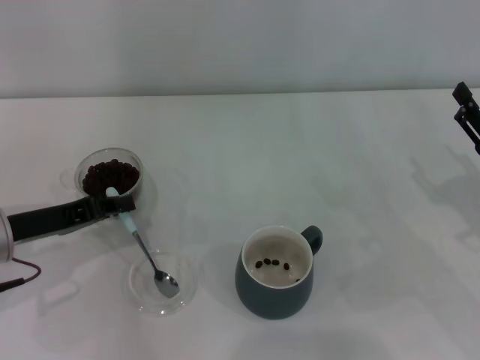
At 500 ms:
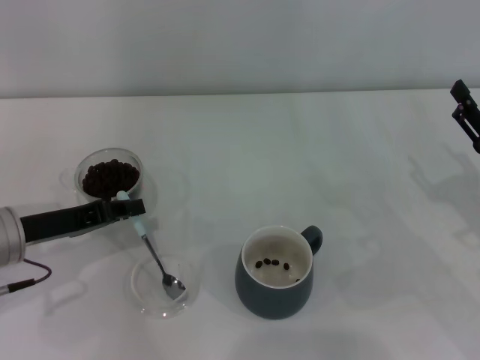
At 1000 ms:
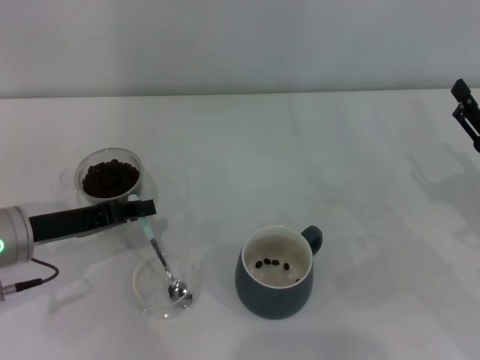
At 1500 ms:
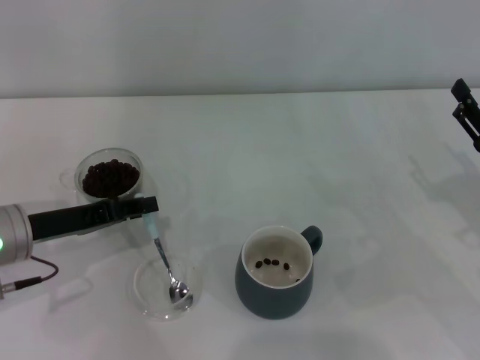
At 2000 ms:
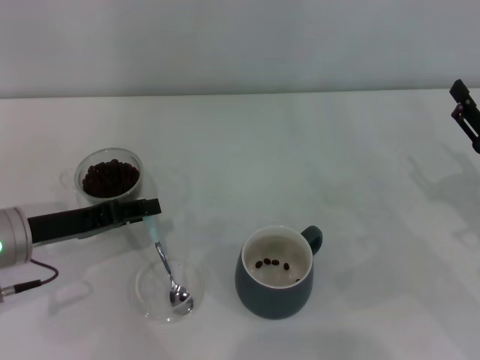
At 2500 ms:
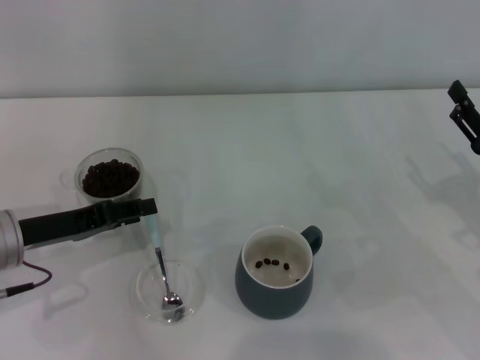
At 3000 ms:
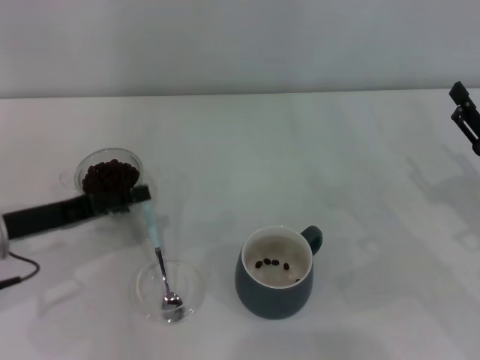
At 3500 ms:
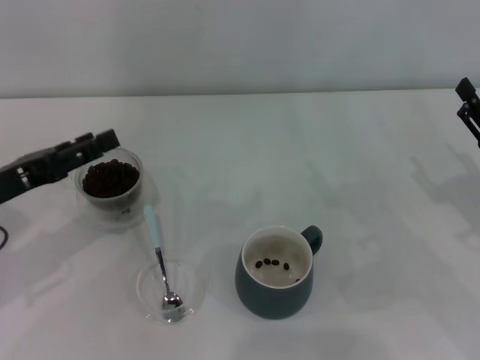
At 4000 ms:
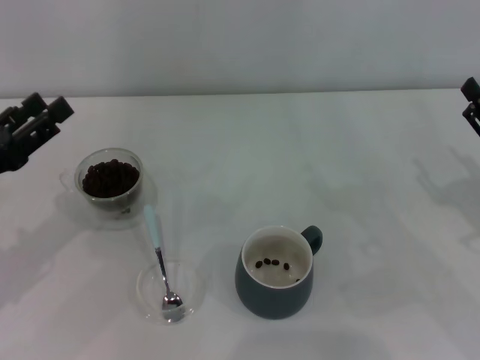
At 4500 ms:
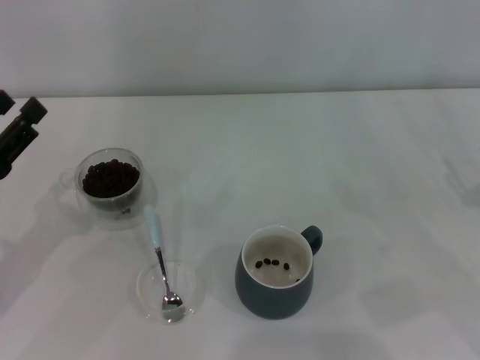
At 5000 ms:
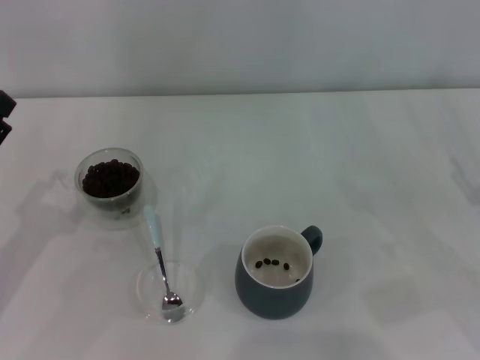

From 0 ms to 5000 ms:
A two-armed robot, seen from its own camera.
Task of the whole recording: Use a blue spoon to take out the coffee beans from the glass and pour them into the gray cup.
Step, from 0 ms to 2500 ms: Place the spoon back in its original place with the right gripper.
From 0 ms to 2500 ms: The left gripper opens.
From 2500 ms to 5000 ms: The left gripper goes about 10 cm backward and to the left, and opens its fingers.

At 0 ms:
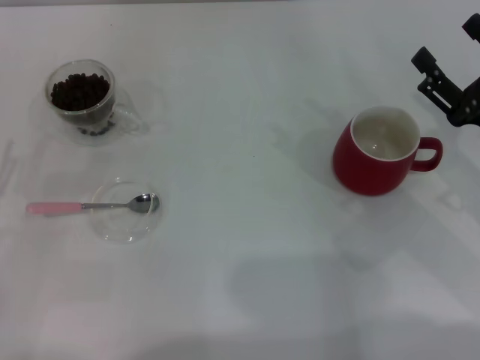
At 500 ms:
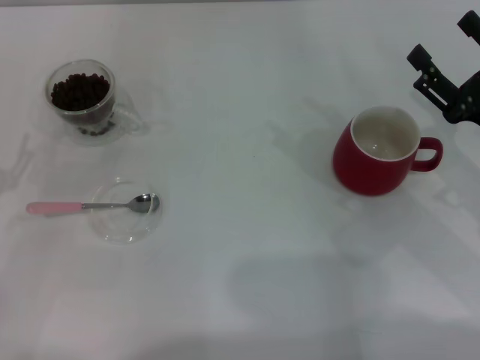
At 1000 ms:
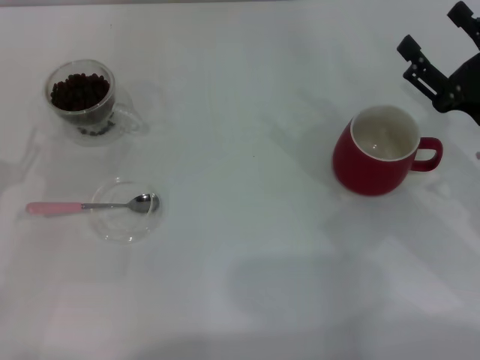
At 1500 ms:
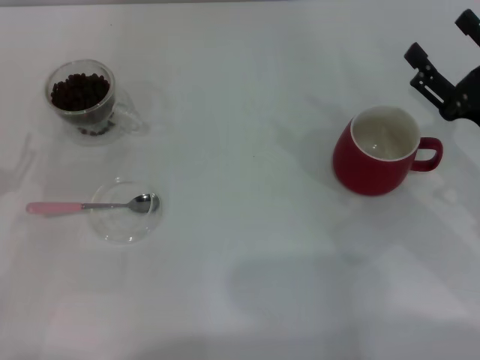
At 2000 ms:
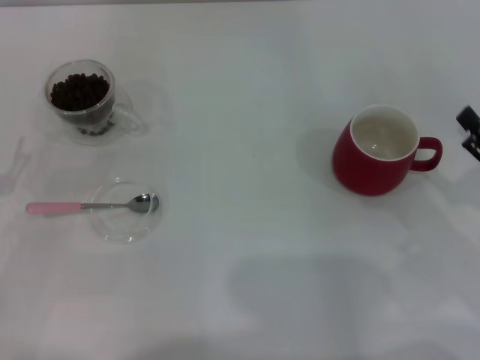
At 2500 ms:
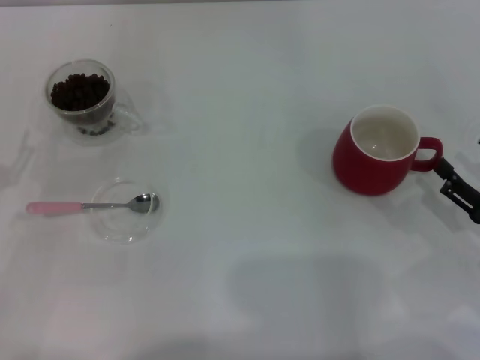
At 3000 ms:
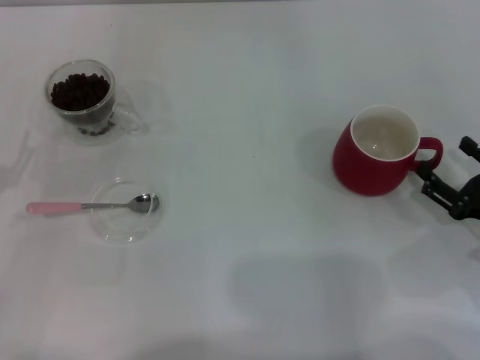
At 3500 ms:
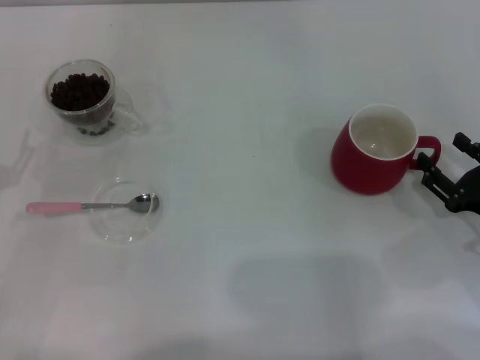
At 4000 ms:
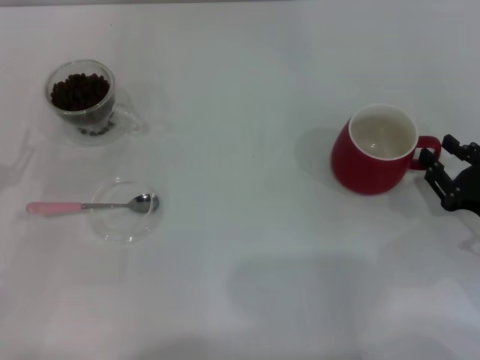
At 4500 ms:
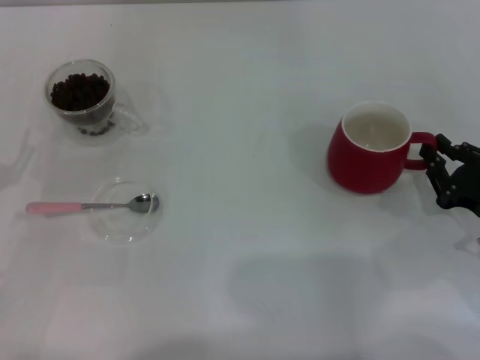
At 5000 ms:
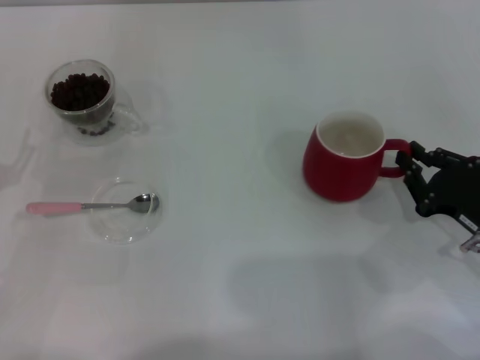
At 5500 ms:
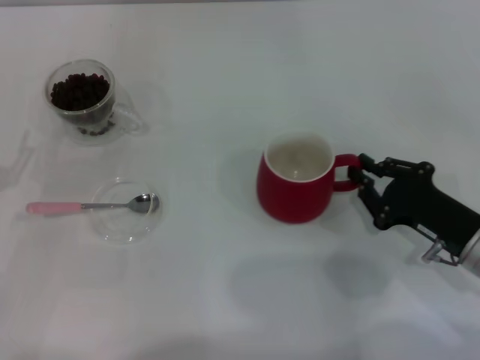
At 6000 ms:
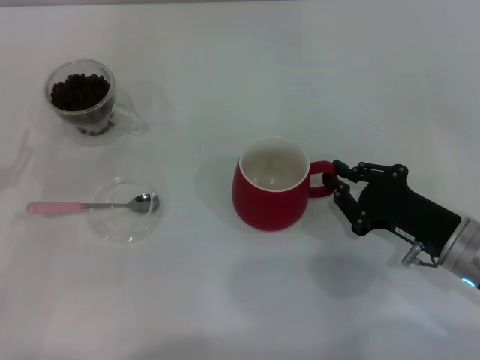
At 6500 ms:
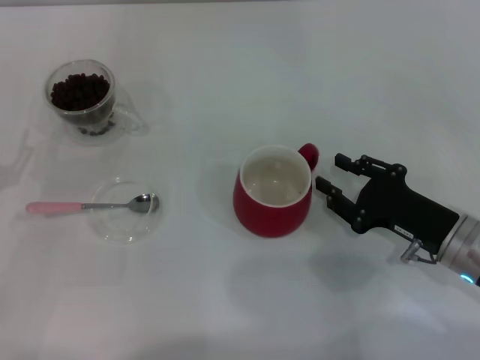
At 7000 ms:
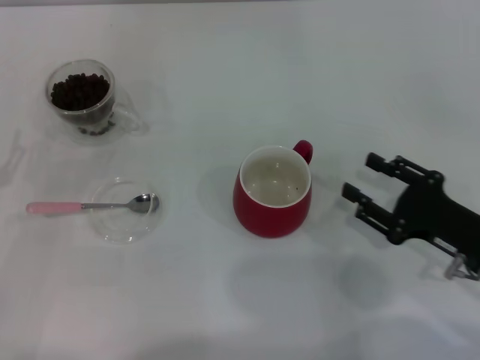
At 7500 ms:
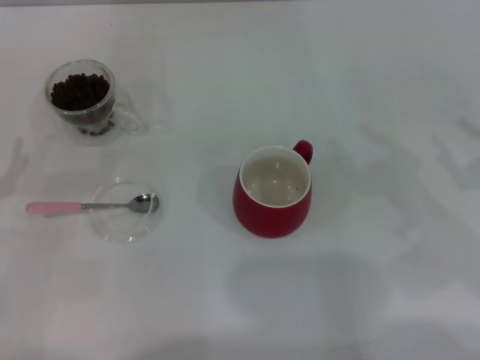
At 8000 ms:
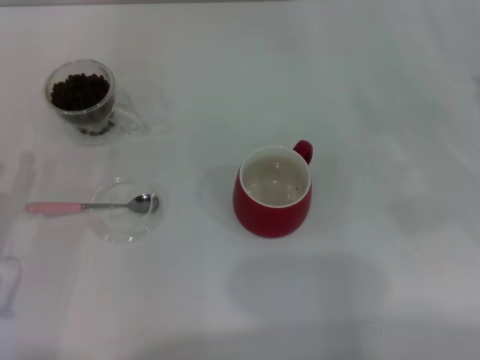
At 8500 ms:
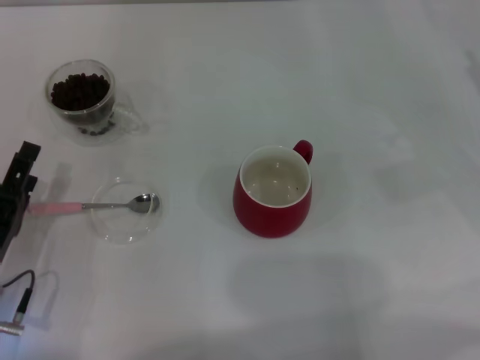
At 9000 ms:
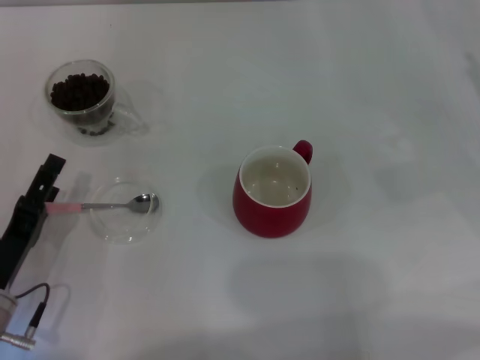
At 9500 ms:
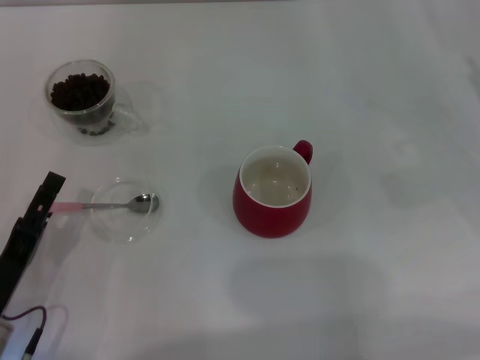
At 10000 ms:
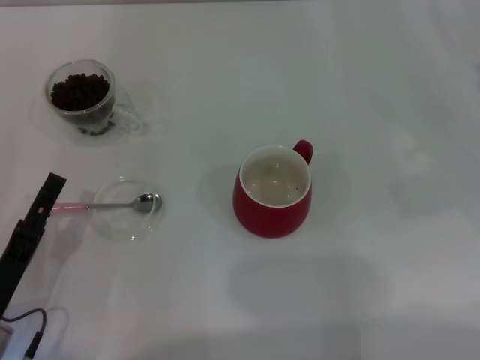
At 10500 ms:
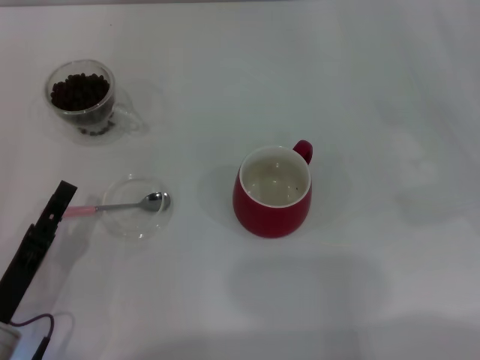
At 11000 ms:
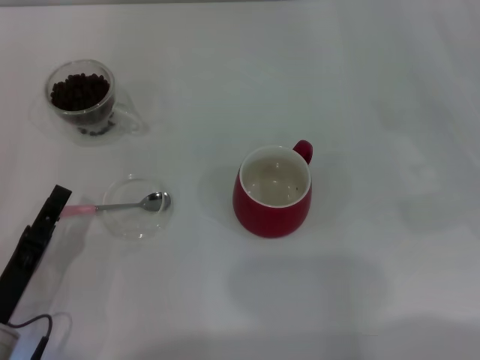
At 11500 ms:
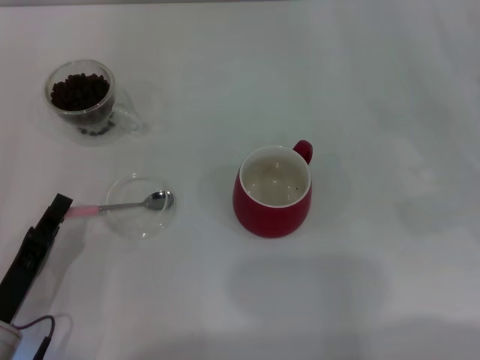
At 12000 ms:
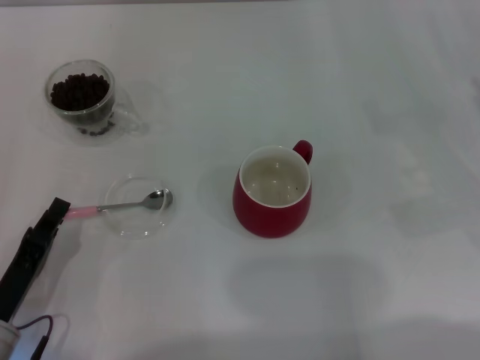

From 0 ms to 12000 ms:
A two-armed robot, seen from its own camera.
Task of the whole recording: Use a pink spoon to take out the coffee beans from the glass and pour them into the red cup.
Step, from 0 ms to 6500 ms: Move the cup to the center of view with the left gripper.
From 0 ms to 2000 ms: The right gripper is displaced backward by about 5 cm.
From 2000 ms to 4000 ms: The right gripper closes up.
From 4000 ms to 6000 ms: The right gripper heads to the left, covering approximately 5 cm, and closes up.
From 6000 ms to 8000 ms: The right gripper moves to the right and upward, approximately 15 cm, and opens.
From 8000 ms to 10000 ms: The left gripper ends up about 5 cm from where it was.
From 10000 ms to 12000 ms: The left gripper closes its fingers.

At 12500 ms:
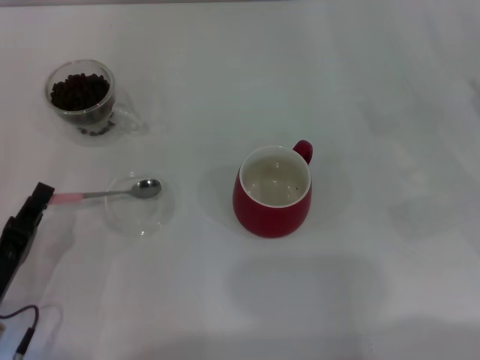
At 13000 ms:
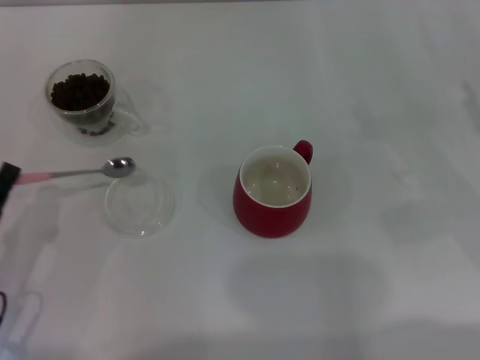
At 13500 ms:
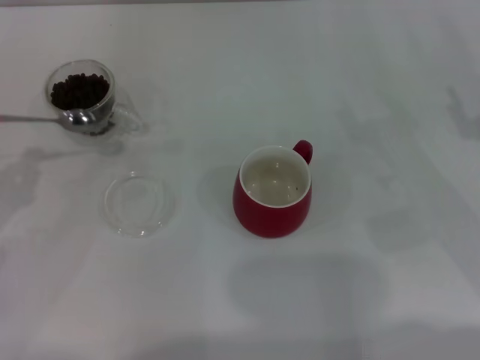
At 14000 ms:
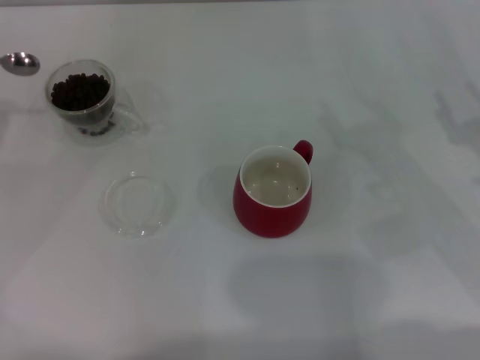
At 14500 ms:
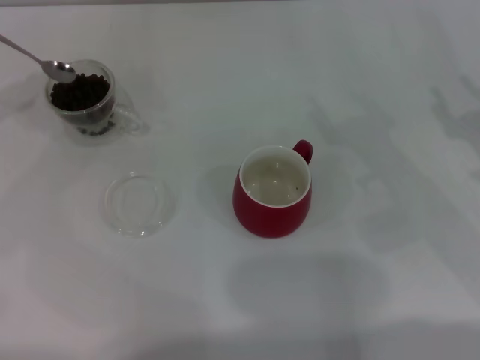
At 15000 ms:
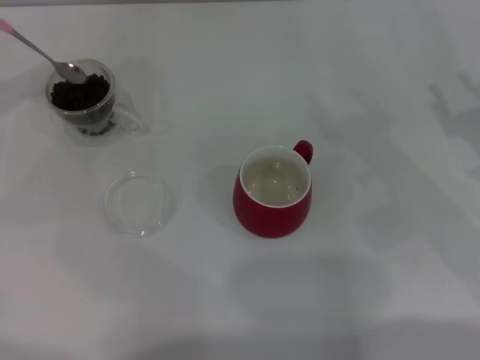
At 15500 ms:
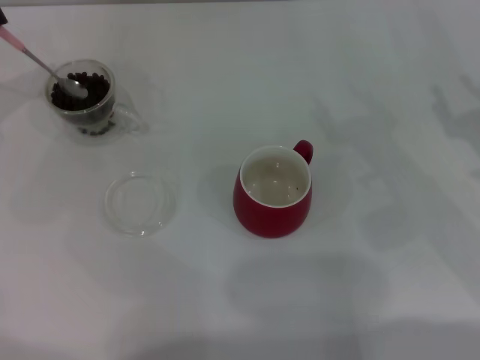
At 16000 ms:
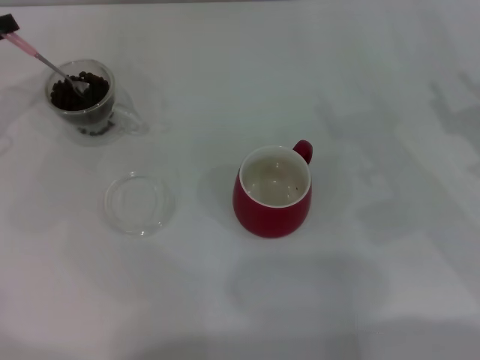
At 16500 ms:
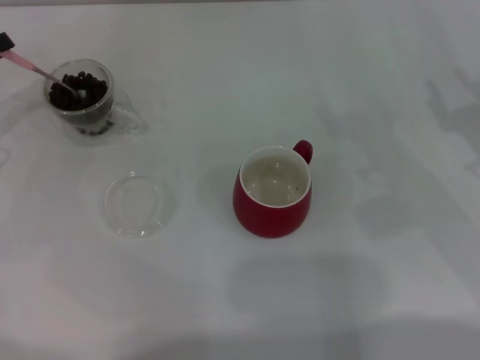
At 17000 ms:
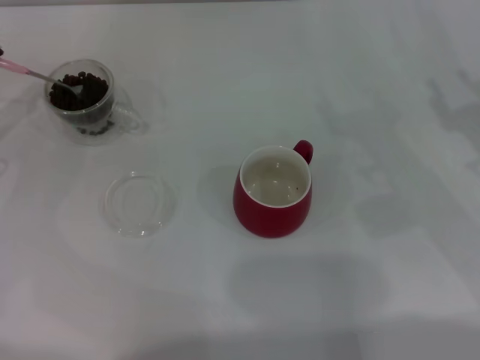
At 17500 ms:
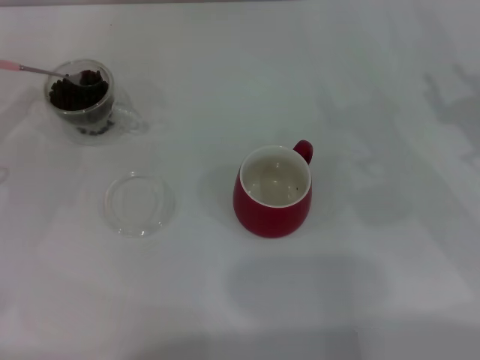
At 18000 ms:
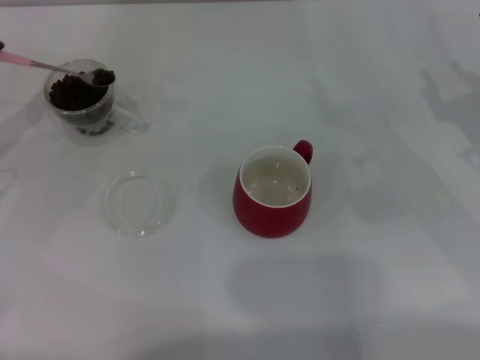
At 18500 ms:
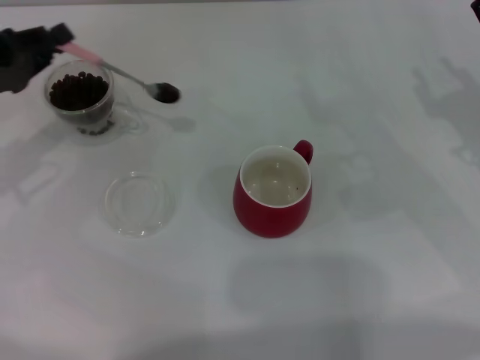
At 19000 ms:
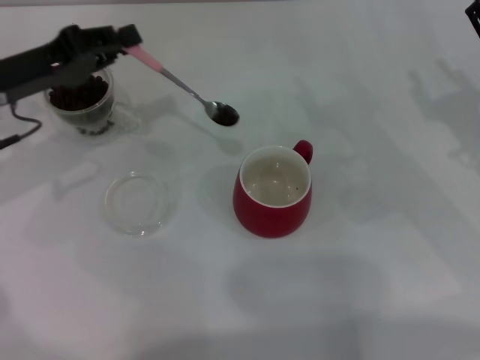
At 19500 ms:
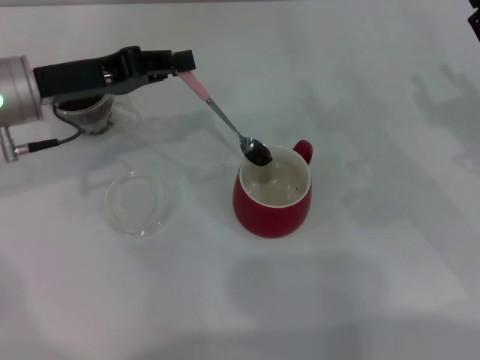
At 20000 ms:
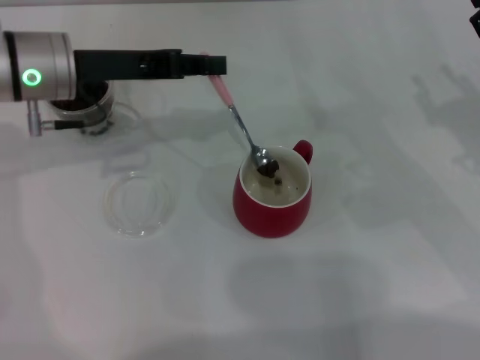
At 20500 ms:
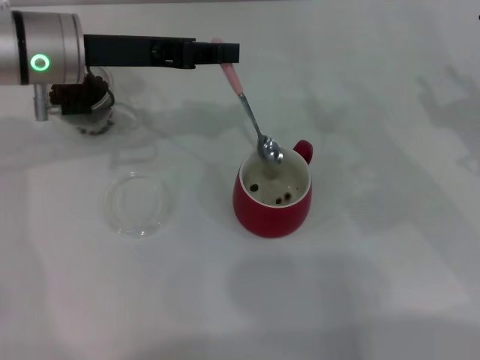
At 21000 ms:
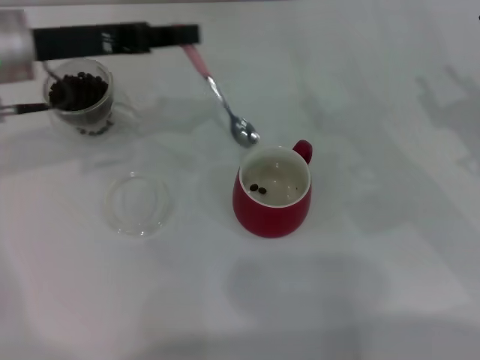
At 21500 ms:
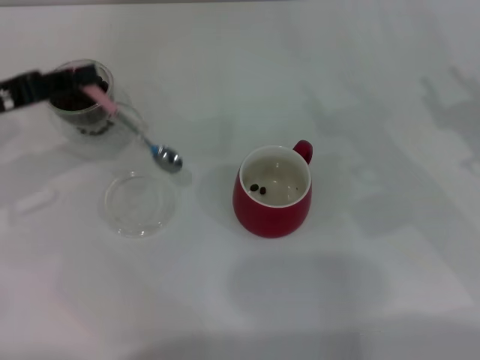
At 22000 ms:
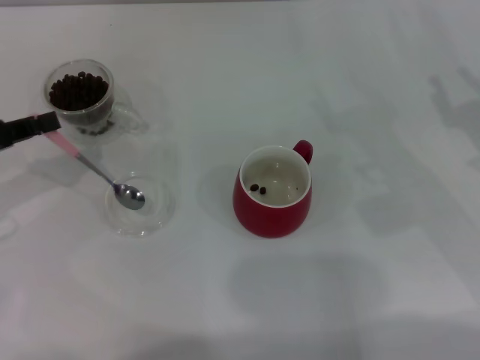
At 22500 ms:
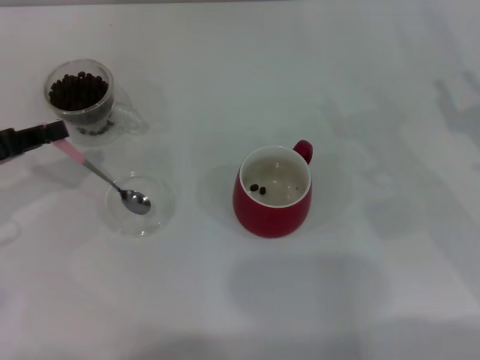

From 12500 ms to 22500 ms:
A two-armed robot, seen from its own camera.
Task of the whole recording: Use a pink spoon to take out the coffee beans from the glass and pour them into the red cup.
From 12500 ms to 14500 ms: The left gripper shifts roughly 30 cm forward, upward and to the left.
From 14500 ms to 16500 ms: The left gripper is displaced downward by approximately 5 cm.
From 16500 ms to 18500 ms: The left gripper shifts by some 5 cm.
From 18500 ms to 20500 ms: The left gripper is displaced to the right and upward by some 15 cm.
From 20500 ms to 22500 ms: The left gripper moves to the left, backward and downward, some 20 cm.
